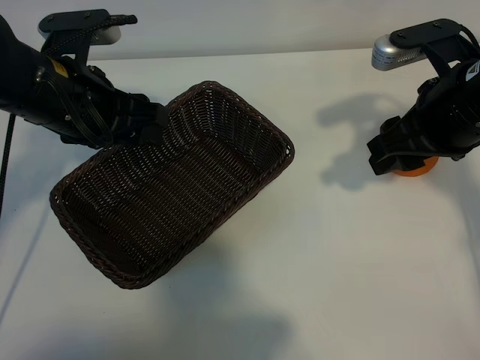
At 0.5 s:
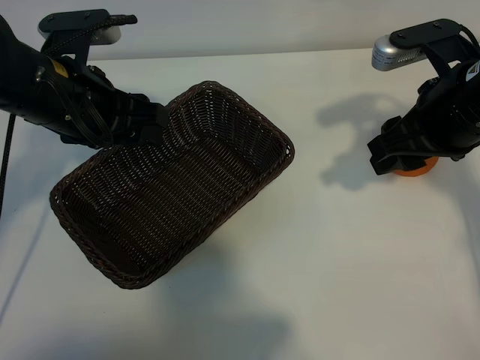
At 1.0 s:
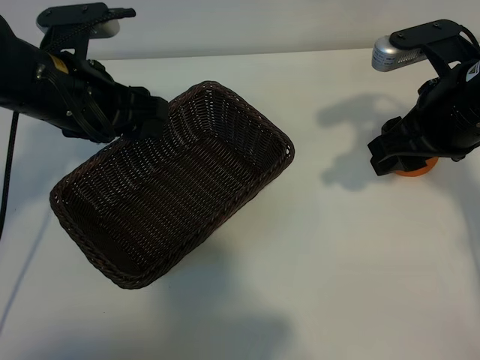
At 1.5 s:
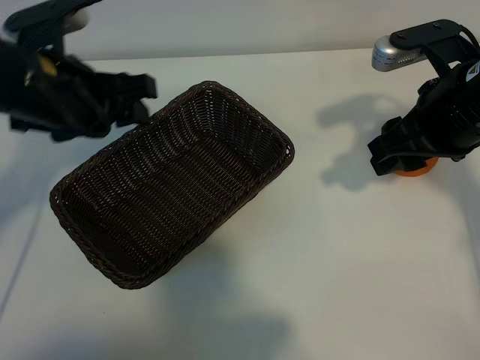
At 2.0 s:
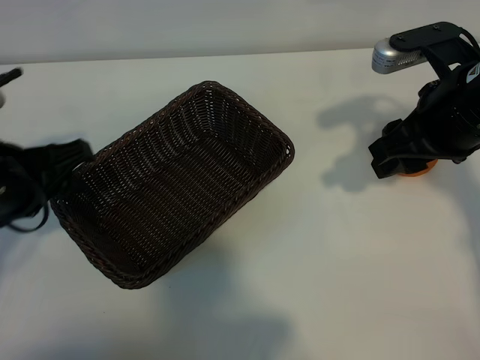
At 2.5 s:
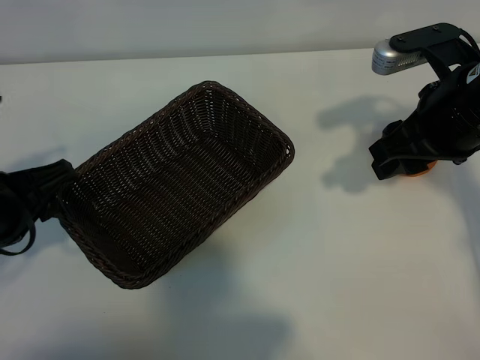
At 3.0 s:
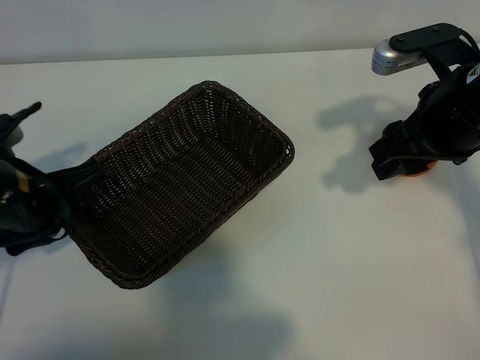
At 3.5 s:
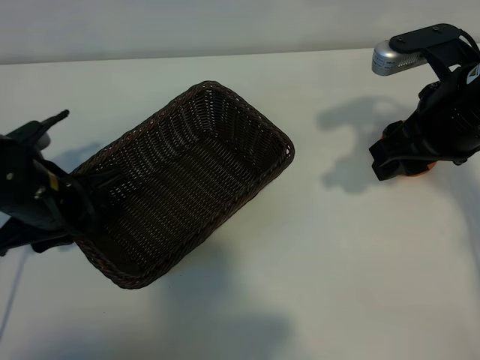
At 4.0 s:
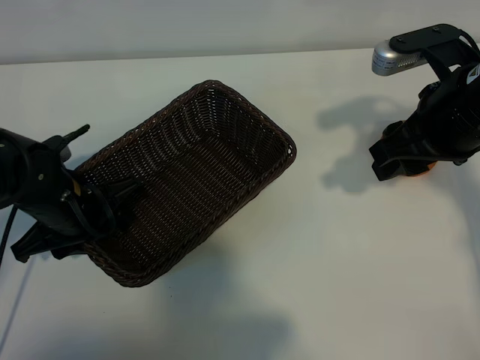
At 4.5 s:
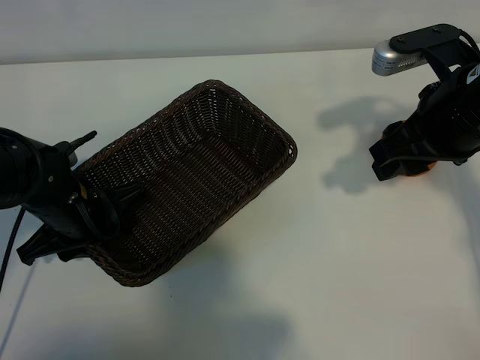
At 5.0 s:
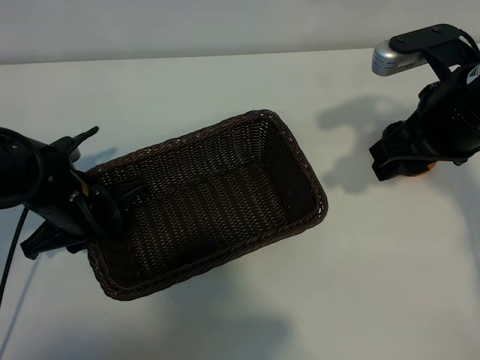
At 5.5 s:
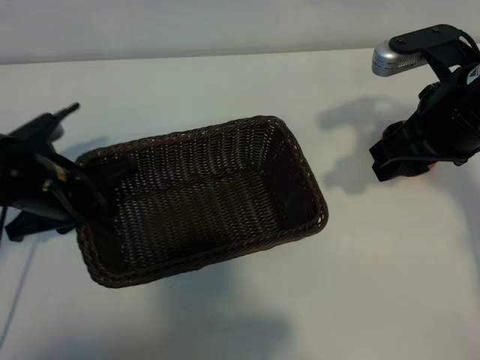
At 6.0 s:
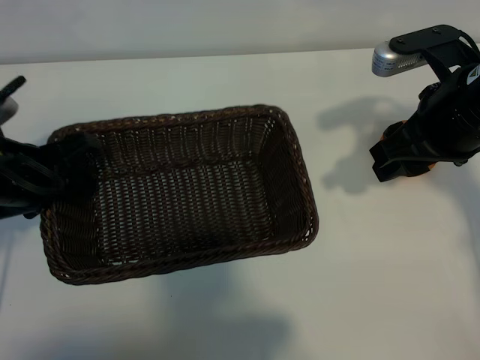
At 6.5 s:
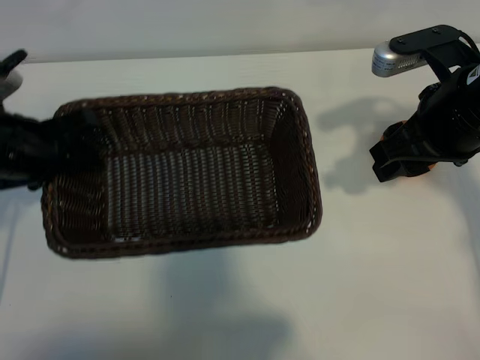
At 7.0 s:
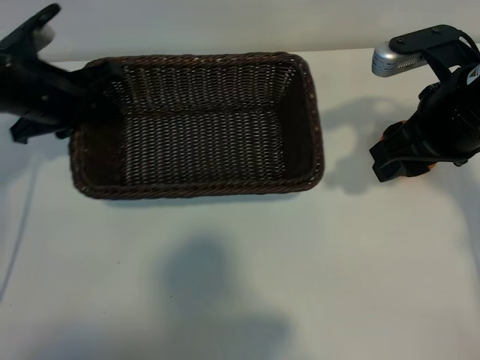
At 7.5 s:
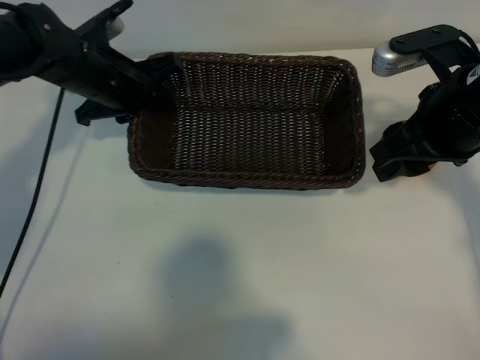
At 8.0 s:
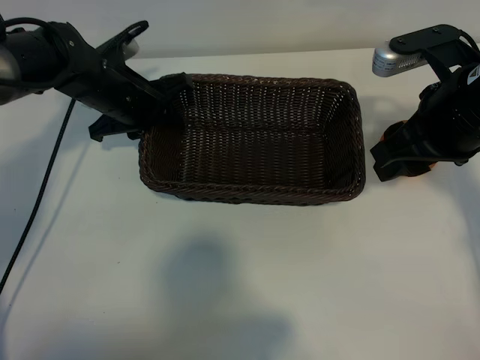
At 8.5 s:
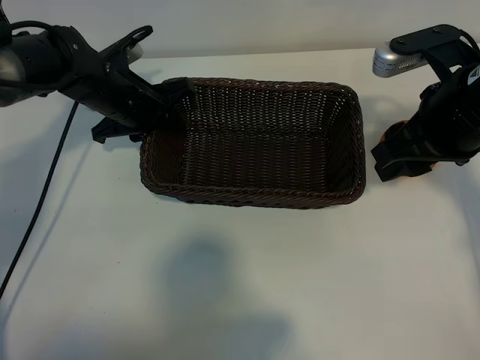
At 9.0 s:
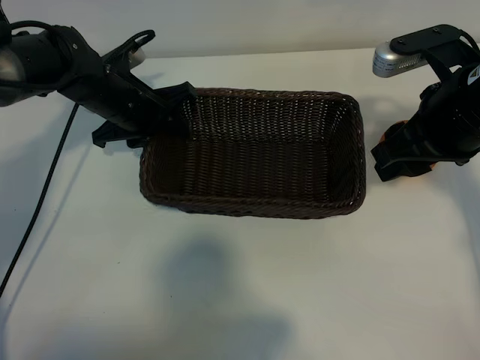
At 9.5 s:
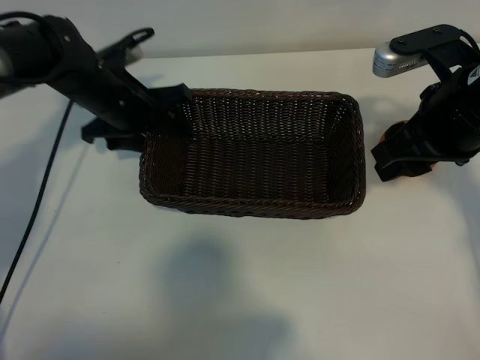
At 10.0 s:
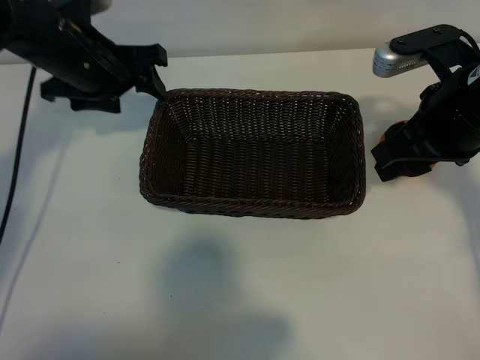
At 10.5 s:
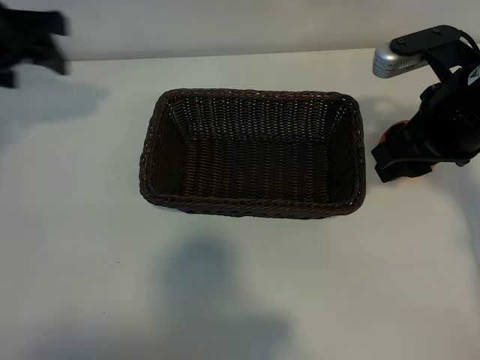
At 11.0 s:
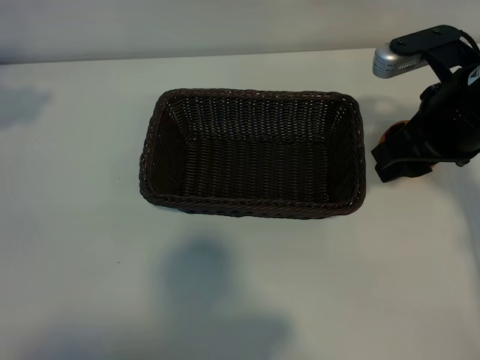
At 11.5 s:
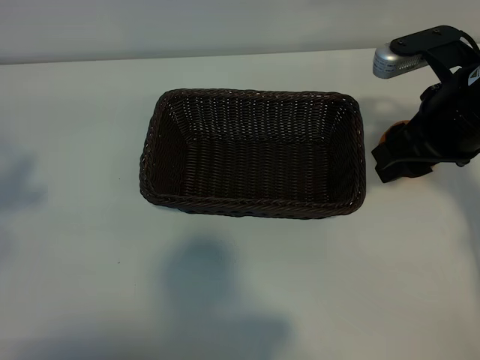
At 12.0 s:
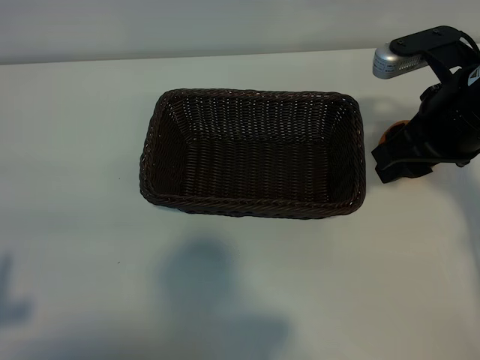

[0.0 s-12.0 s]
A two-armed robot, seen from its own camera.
Task of the whole recording: pick up the orange and put it into the basket.
Step, 1.0 to 4.5 s: Grasp the basket with left gripper.
Step, 5.0 to 8.5 s: Place the basket in the center of view with left gripper.

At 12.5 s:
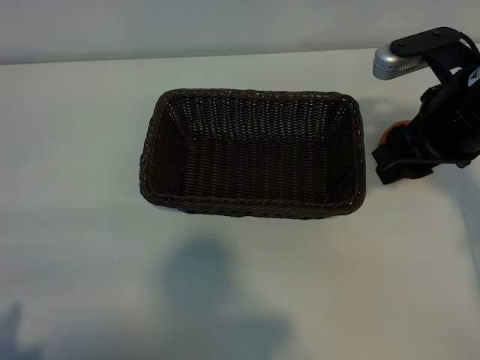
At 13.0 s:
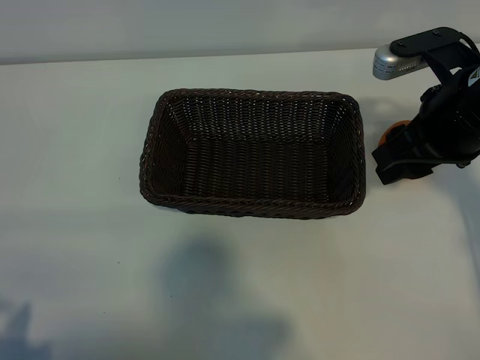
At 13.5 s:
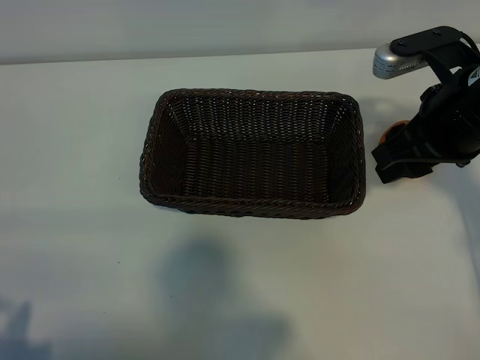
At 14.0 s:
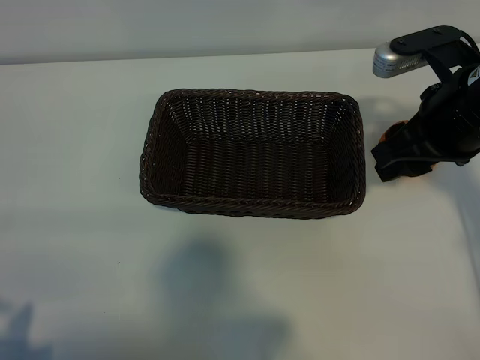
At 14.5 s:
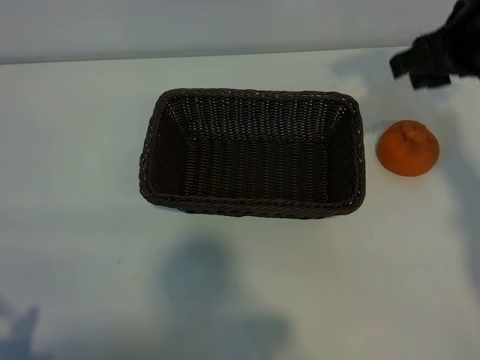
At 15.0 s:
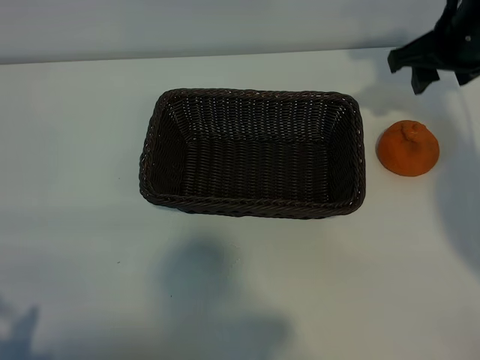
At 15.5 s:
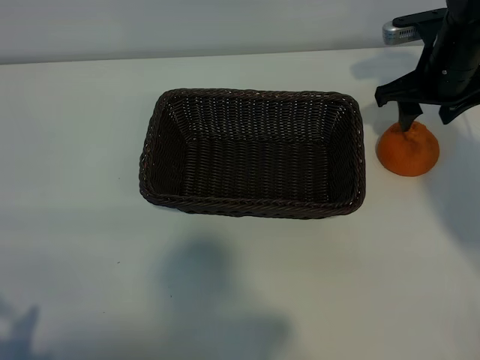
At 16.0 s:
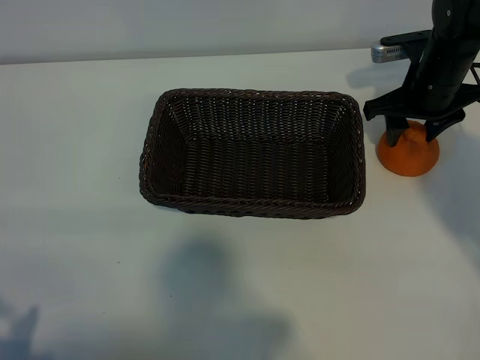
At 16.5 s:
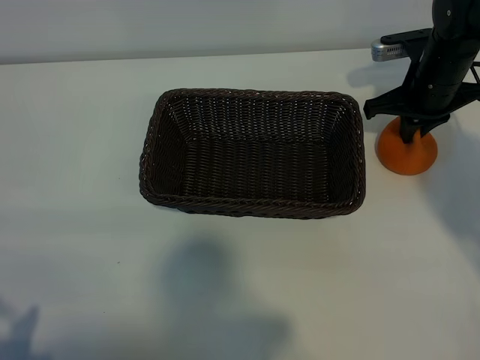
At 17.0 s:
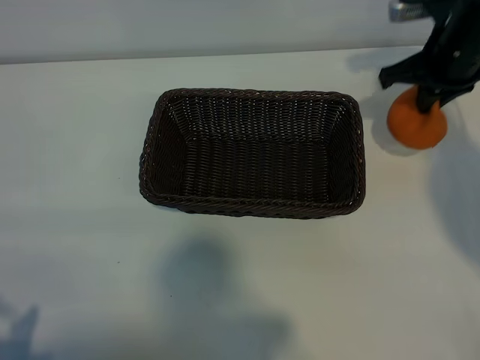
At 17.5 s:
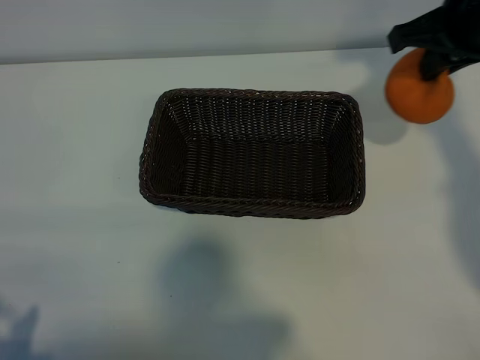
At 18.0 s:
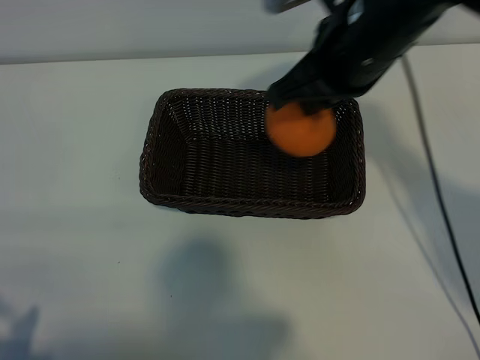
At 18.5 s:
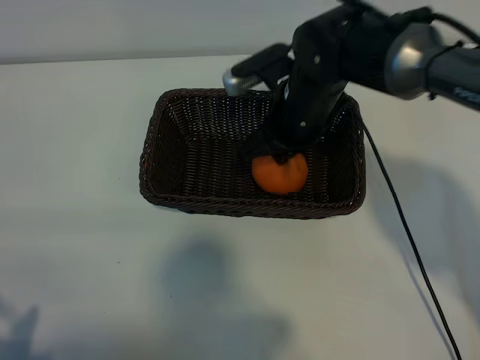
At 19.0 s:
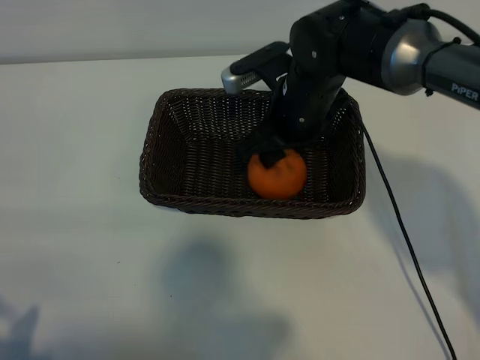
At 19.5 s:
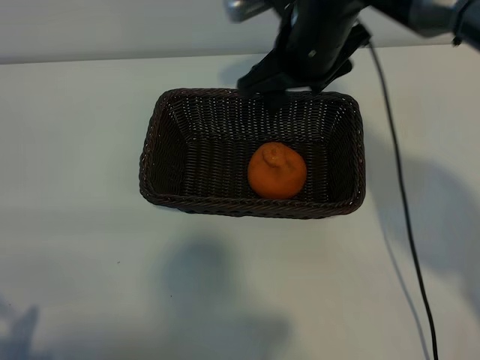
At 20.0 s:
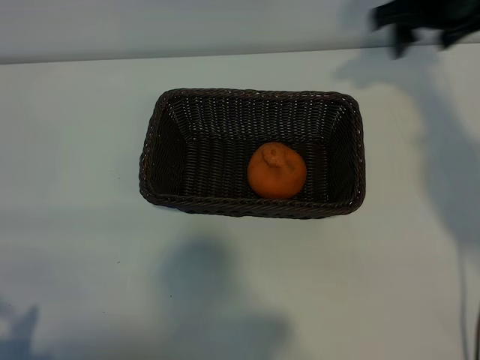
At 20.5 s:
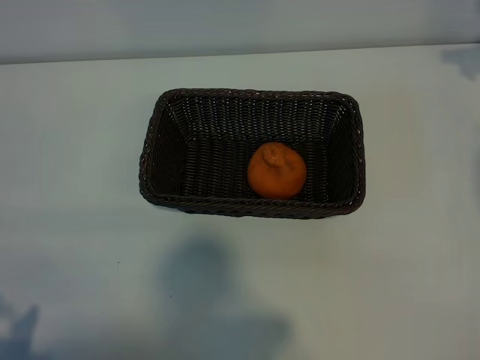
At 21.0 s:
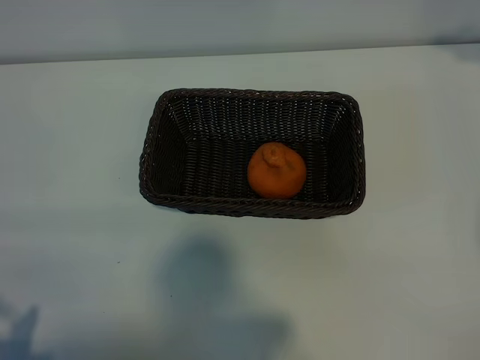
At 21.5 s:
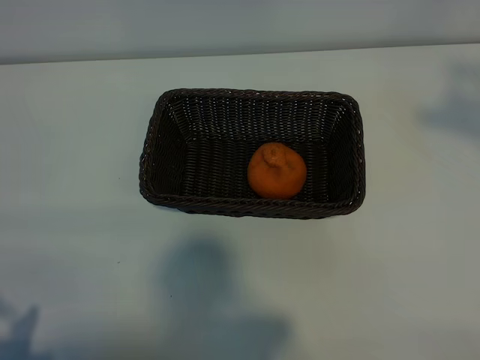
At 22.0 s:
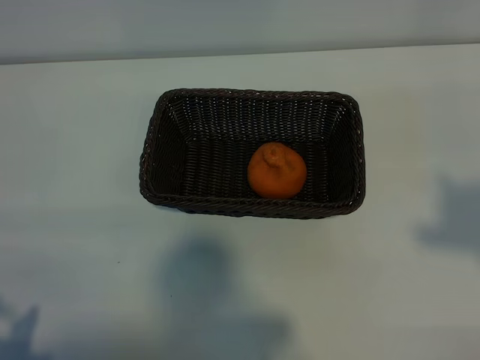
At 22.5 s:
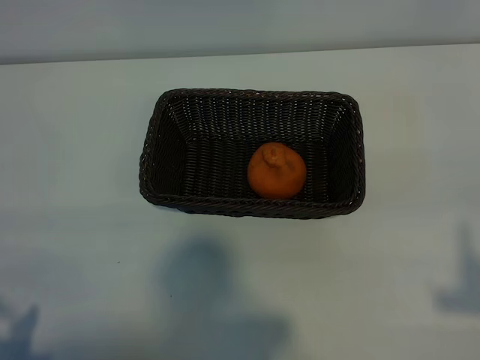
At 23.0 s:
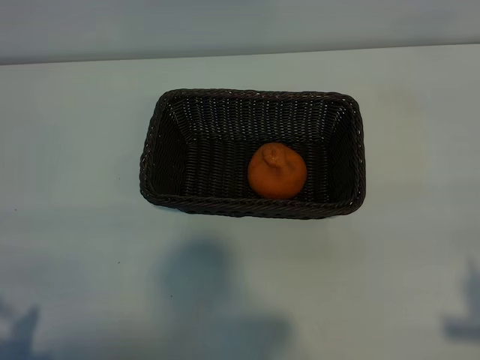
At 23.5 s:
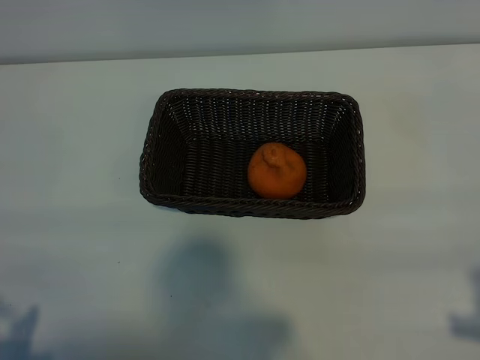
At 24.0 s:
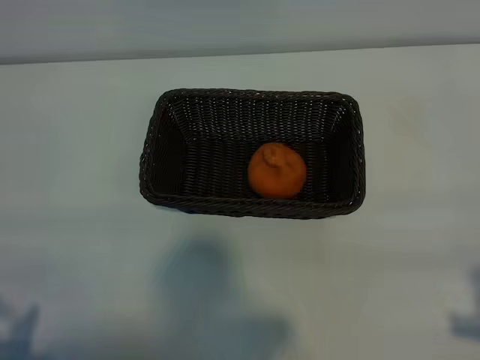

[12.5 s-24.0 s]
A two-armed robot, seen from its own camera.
Task of the whole recording: pick up the orange and put it into the basket.
Step, 12.5 to 16.5 s: Grasp the orange with right gripper.
Step, 17.0 to 19.0 s: Place the orange in the basket with right gripper.
